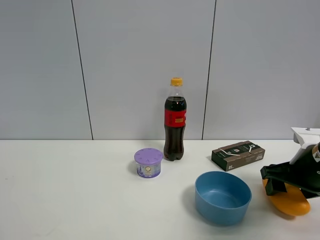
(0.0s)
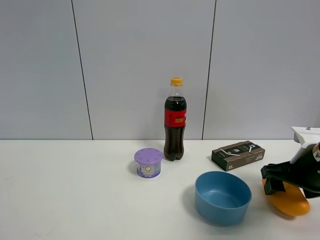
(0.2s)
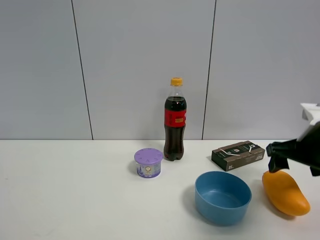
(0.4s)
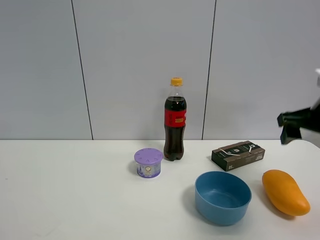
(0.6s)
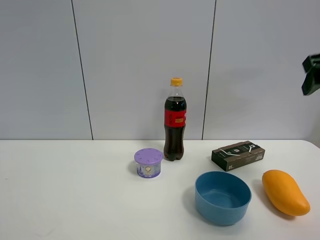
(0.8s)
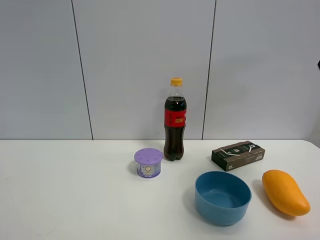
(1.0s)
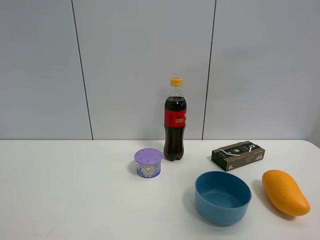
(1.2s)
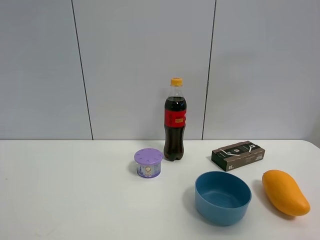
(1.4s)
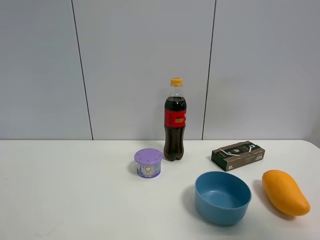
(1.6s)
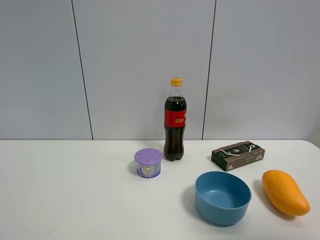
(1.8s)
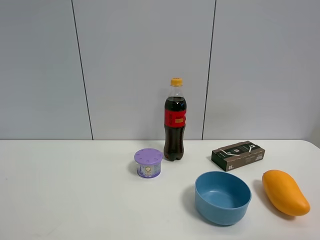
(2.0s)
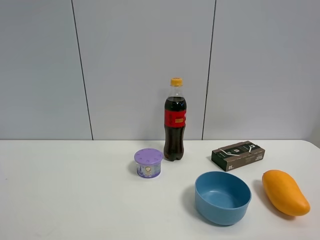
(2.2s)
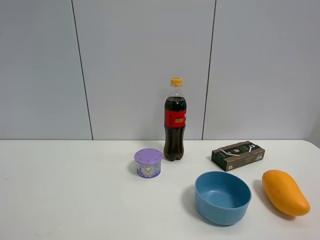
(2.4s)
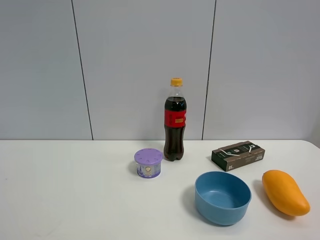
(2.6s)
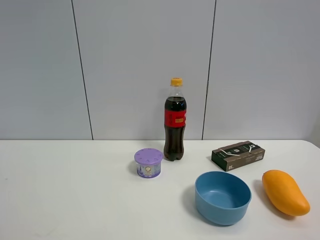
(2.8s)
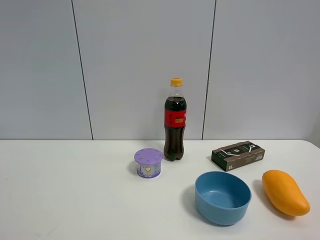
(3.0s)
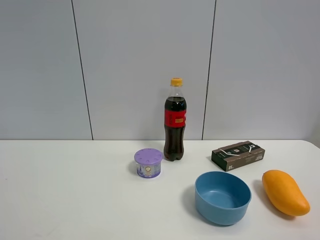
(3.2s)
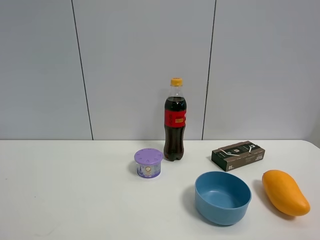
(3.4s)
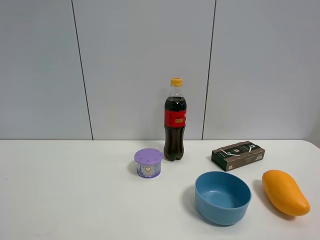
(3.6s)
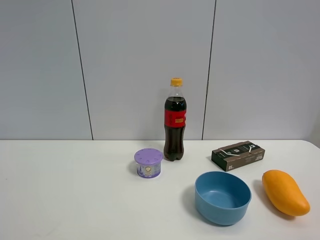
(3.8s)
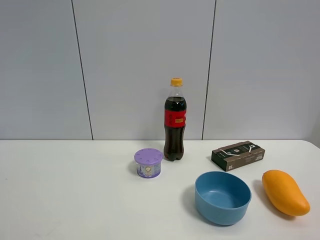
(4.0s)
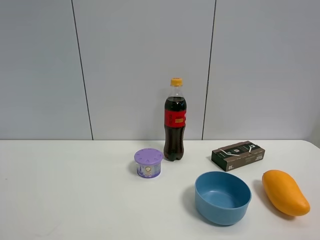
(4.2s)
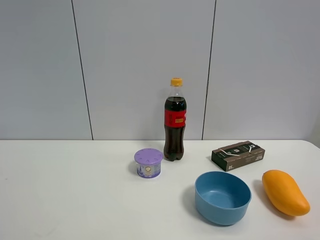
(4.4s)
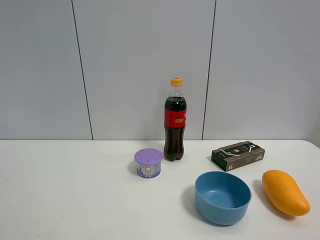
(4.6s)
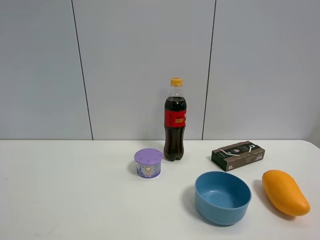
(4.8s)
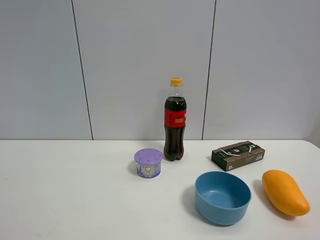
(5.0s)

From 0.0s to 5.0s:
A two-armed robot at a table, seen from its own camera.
Task of the whole recording: the gripper move the object.
From 0.0s to 1.6s: The right gripper travels upward and backward by some 35 cm.
From 1.6s to 3.4s: The right gripper heads downward and backward, covering about 15 cm.
From 3.4s to 5.0s: Both grippers stay put.

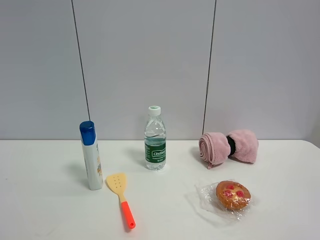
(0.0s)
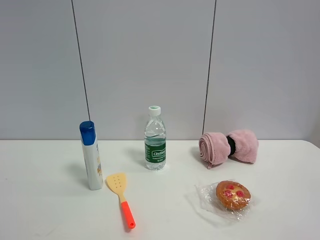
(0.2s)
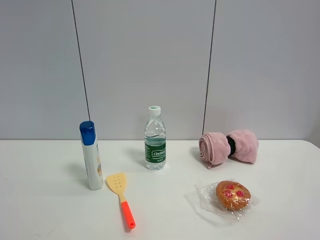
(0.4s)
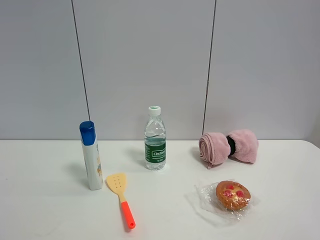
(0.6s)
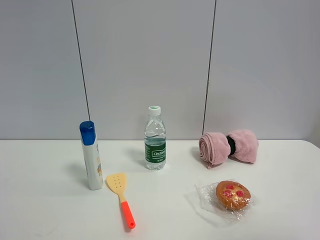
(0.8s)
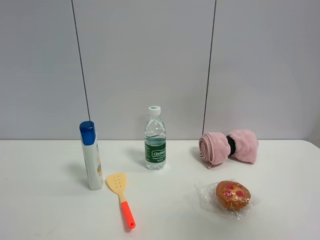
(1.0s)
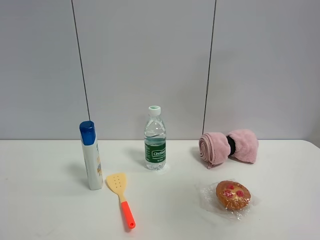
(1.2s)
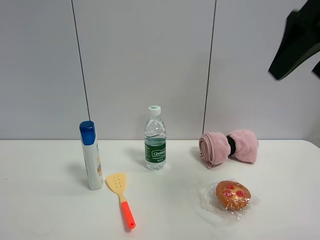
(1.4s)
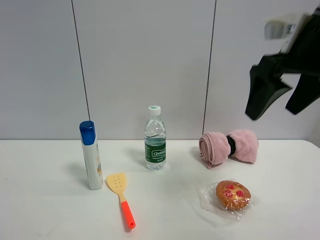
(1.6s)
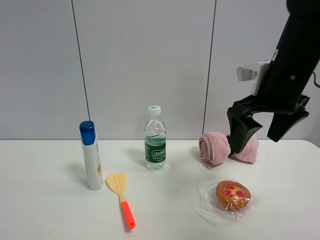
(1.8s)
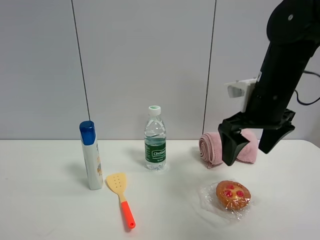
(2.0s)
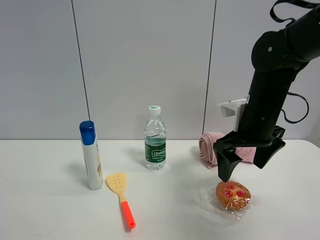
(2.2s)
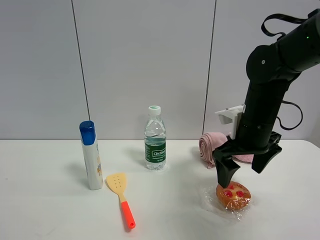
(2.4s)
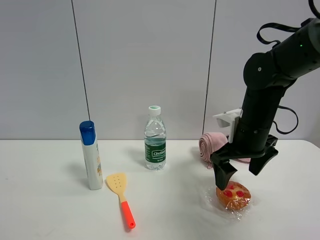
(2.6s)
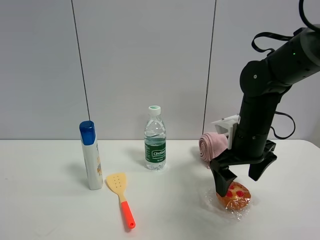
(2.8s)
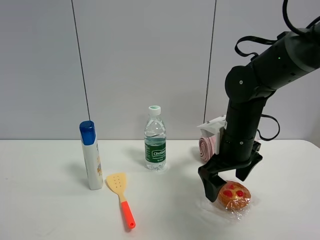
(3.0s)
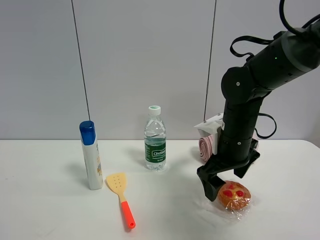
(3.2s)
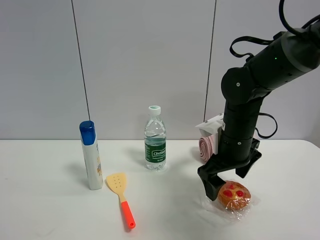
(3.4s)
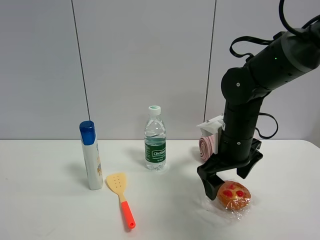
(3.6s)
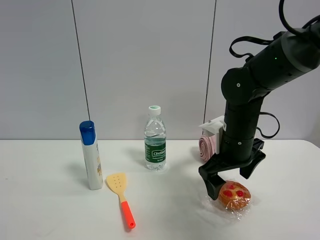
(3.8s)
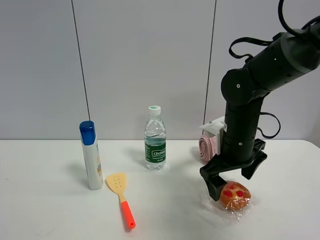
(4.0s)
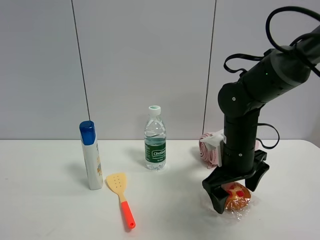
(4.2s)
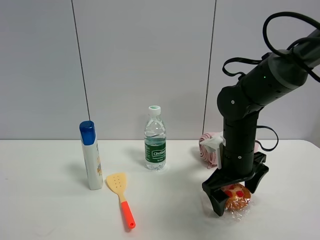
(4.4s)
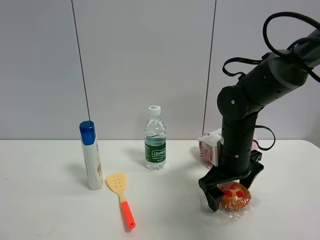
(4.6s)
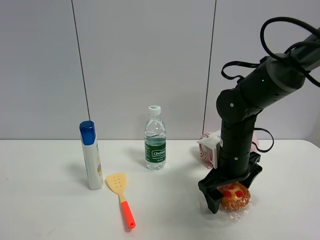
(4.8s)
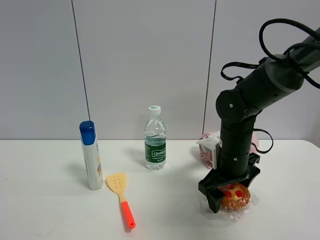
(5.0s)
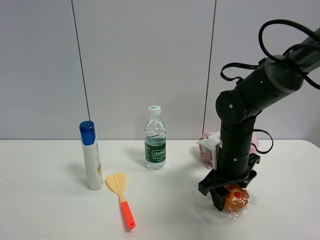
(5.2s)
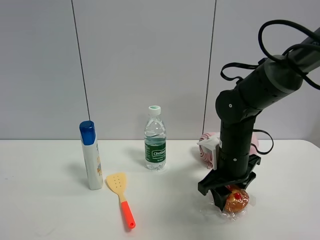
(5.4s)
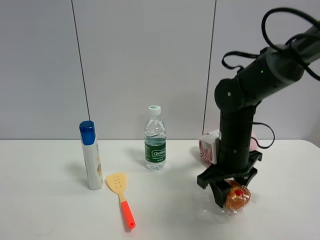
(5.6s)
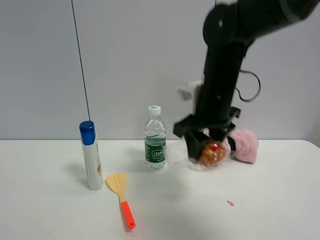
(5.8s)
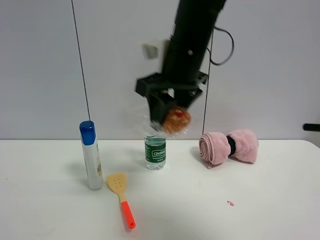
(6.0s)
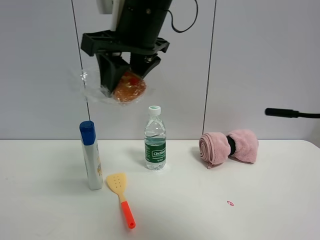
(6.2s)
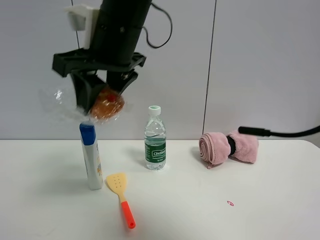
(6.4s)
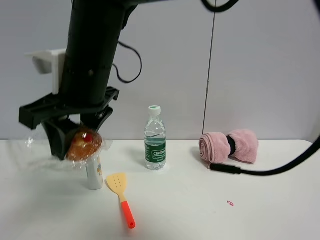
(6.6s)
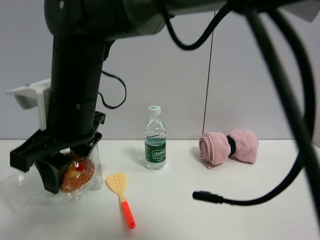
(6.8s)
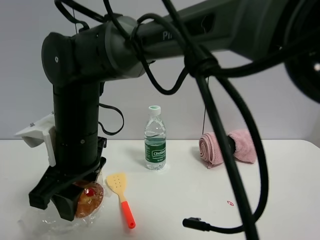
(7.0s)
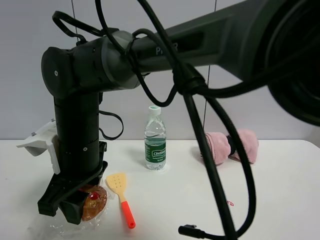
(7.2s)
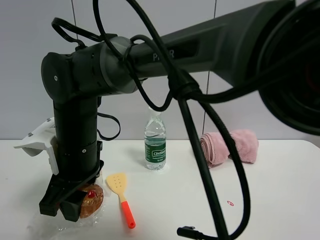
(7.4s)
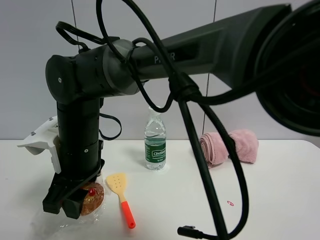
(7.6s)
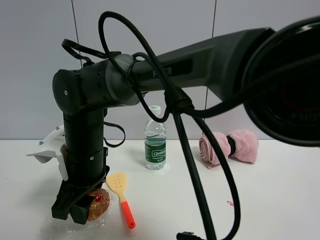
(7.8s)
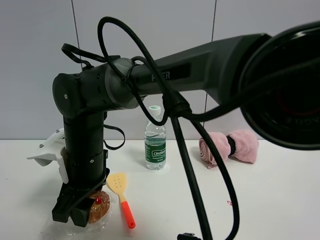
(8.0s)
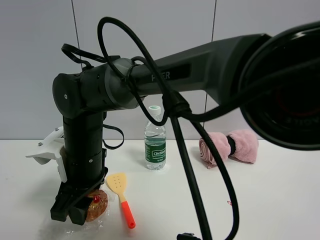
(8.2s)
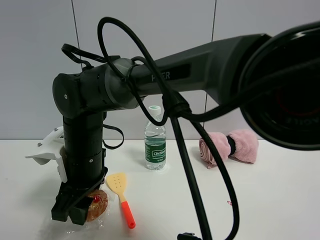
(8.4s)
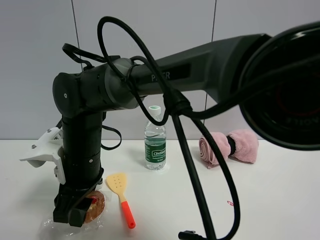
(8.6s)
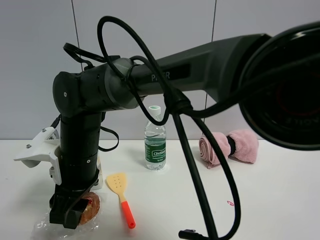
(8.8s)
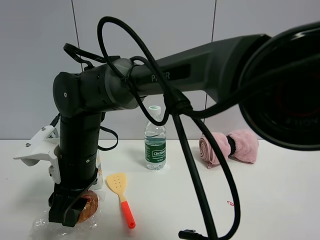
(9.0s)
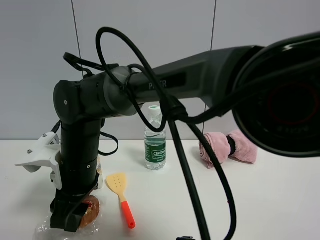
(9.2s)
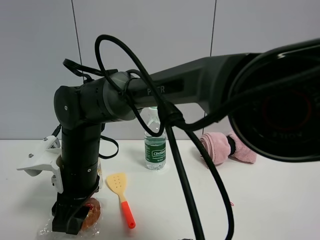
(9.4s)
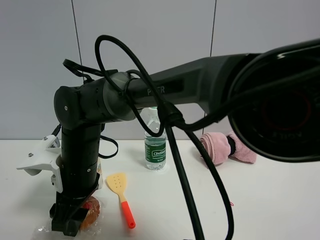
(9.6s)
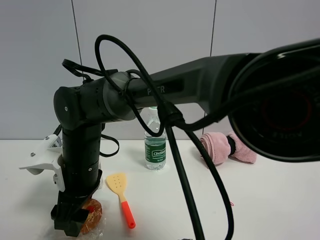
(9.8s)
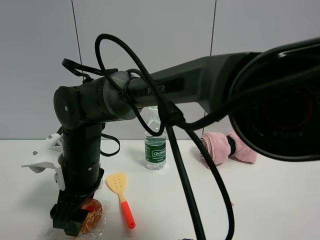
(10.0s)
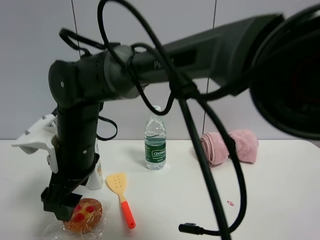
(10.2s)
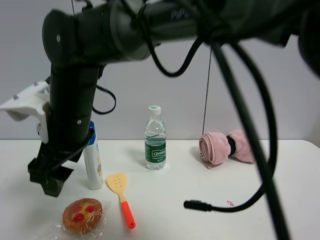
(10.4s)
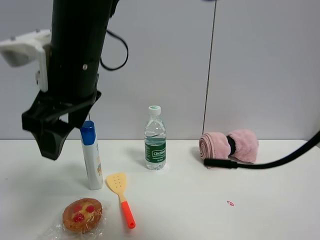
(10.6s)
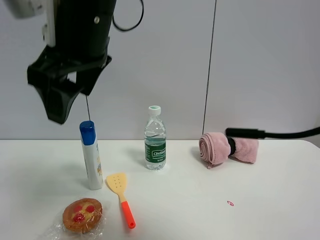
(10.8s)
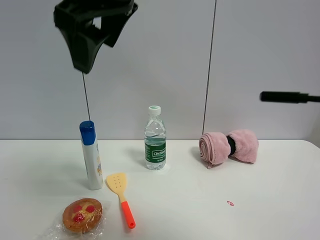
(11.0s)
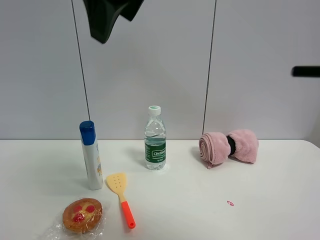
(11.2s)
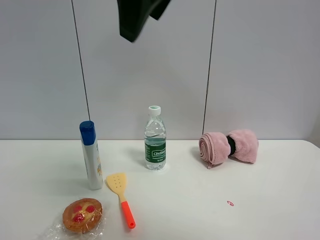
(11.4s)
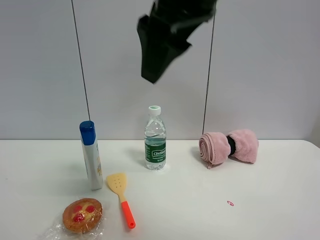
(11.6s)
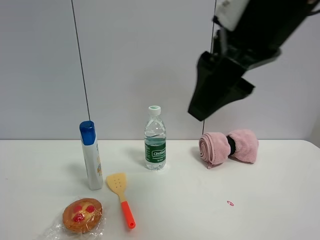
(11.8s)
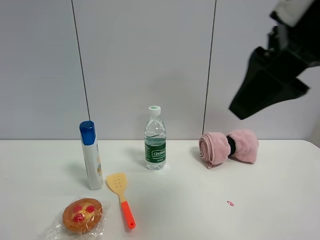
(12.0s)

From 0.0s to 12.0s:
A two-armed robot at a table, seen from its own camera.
Task of the whole recording: the gripper move the object.
Step, from 0.0s to 5.2s: Grasp the egg tart with the right gripper.
Step, from 5.4s to 10.2s: Place the egg tart on the table with the right gripper.
From 0.0s to 1.6s: The right gripper travels forward by roughly 30 cm, and closes and opens again.
From 1.6s to 3.0s: The right gripper heads downward, covering roughly 15 cm.
From 3.0s to 4.4s: The grippers make only small movements.
From 4.4s to 6.0s: The right gripper heads upward and to the left, covering about 25 cm, and closes.
From 6.0s to 7.6s: The right gripper travels downward and to the left by approximately 20 cm.
From 9.0s to 10.4s: The right gripper moves upward, roughly 10 cm, and opens up.
From 10.4s to 12.0s: The right gripper moves to the right and upward, roughly 30 cm.

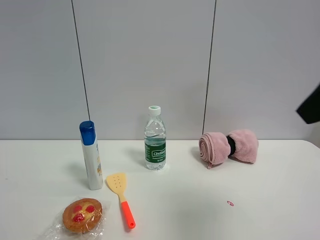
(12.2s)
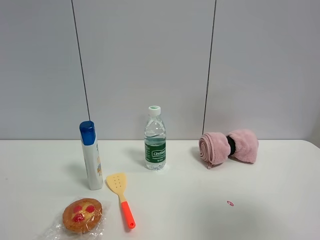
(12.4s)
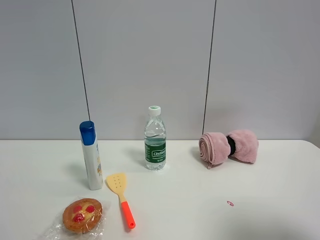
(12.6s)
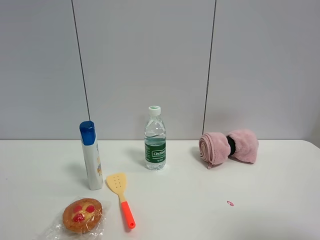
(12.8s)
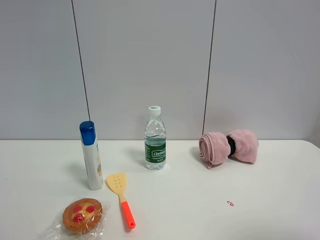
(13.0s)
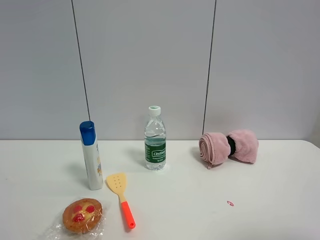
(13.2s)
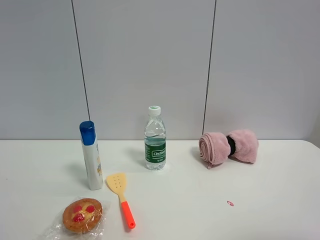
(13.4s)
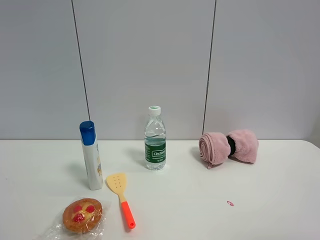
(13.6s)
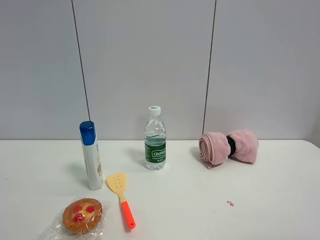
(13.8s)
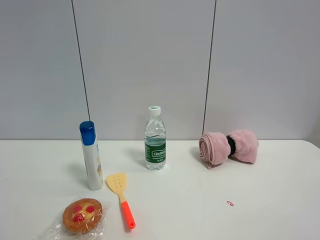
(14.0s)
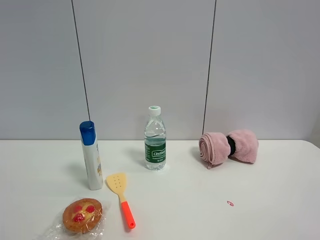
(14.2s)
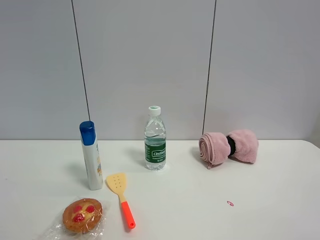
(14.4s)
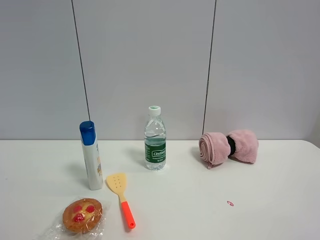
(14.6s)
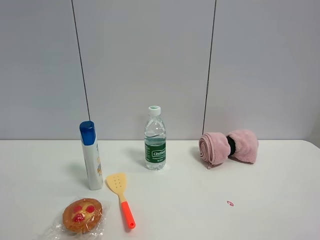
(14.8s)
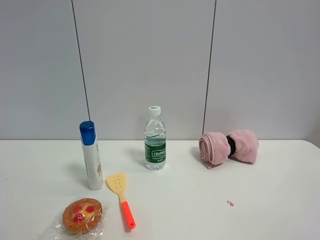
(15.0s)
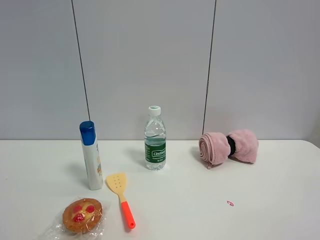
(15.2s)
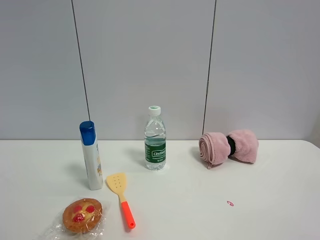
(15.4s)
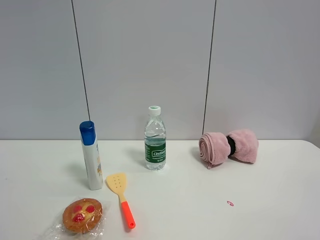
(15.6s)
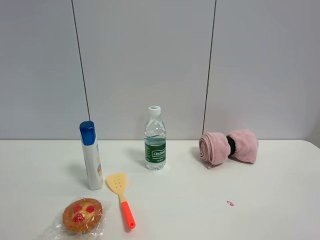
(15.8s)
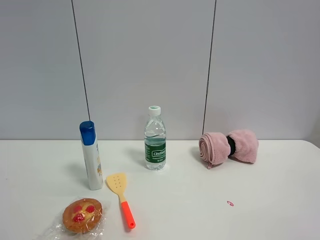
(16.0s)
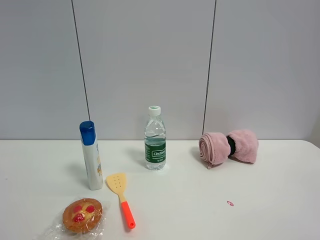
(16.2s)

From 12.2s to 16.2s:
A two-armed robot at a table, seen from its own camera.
Task of the whole recording: the gripper move the object.
From 12.2s to 13.6s: The right gripper shifts approximately 15 cm backward, to the right and downward.
From 14.8s to 16.2s: The two grippers keep their place.

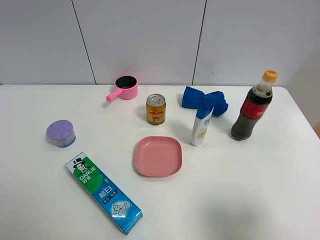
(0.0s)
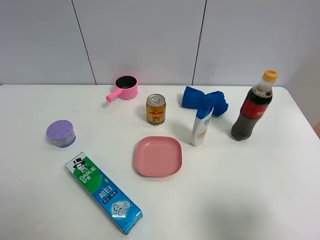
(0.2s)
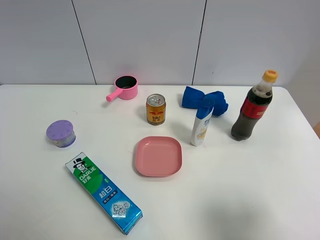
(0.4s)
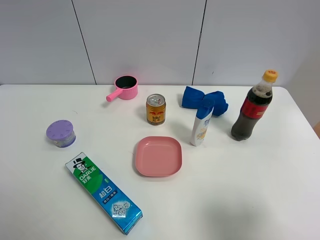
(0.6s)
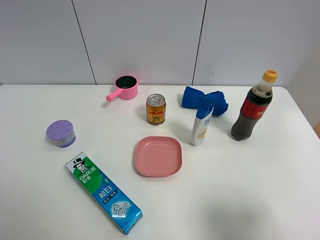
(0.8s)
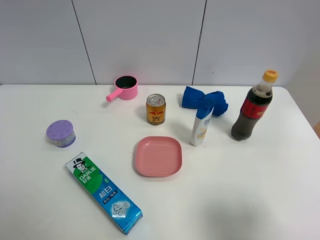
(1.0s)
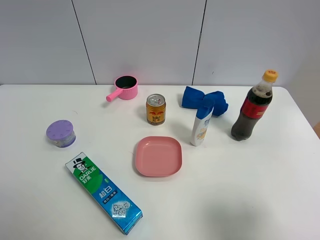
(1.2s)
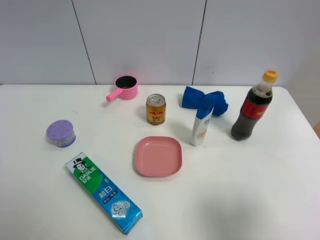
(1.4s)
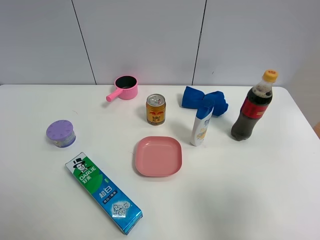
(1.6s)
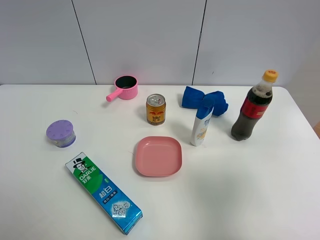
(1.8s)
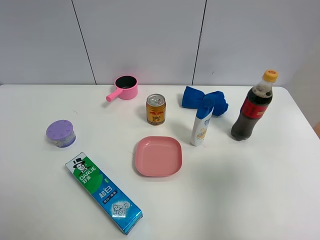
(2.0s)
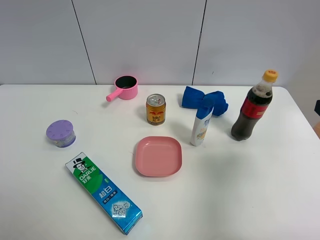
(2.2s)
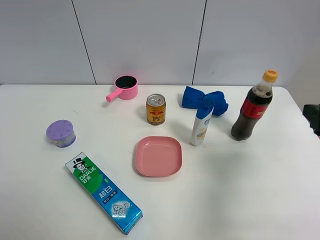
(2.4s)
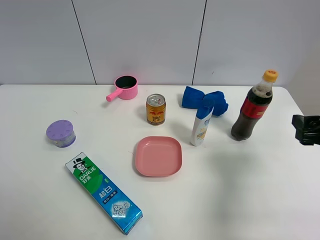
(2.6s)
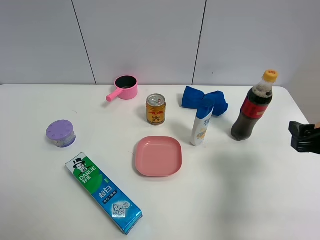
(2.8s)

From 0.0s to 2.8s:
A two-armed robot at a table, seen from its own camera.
Task of the whole recording: the gripper move the object.
From 1.4s to 2.8s: The right gripper shifts approximately 15 cm forward and downward.
